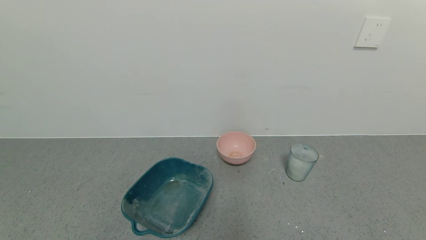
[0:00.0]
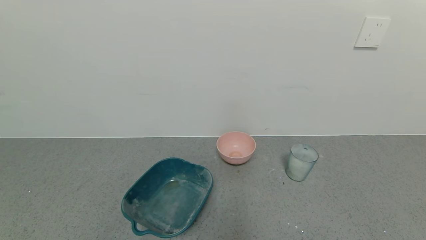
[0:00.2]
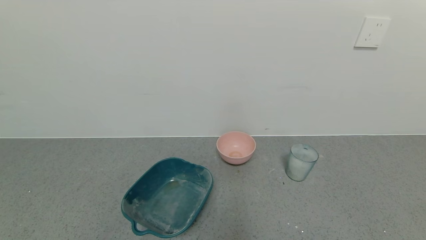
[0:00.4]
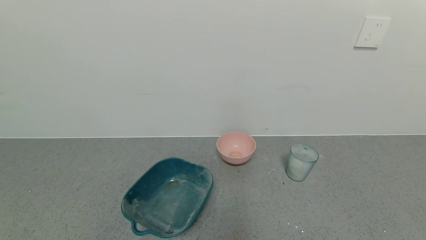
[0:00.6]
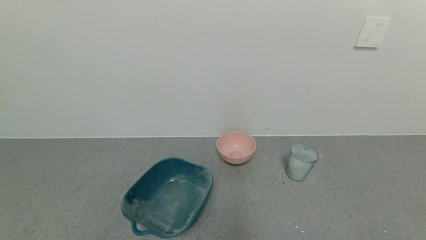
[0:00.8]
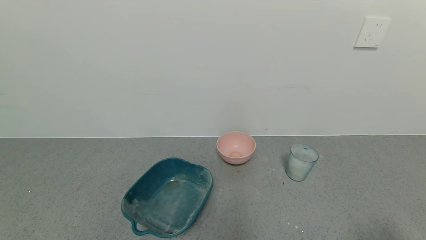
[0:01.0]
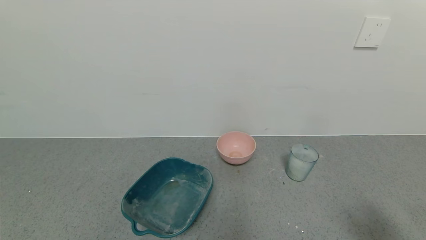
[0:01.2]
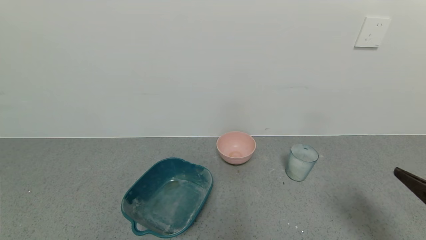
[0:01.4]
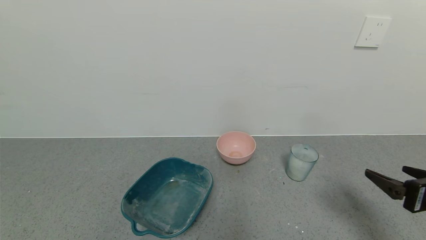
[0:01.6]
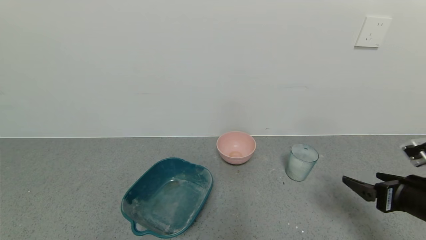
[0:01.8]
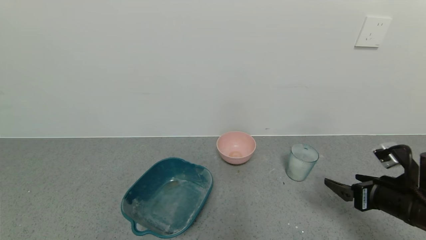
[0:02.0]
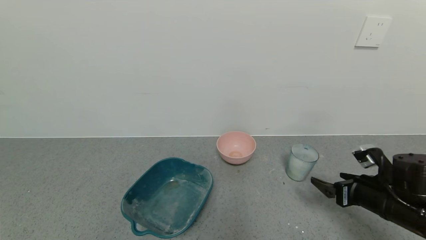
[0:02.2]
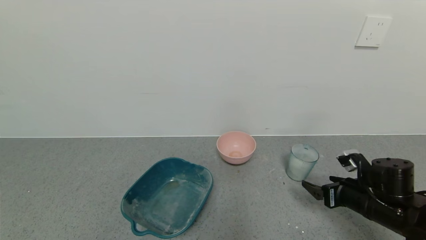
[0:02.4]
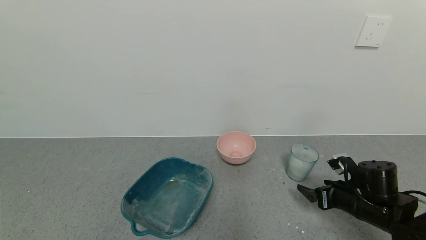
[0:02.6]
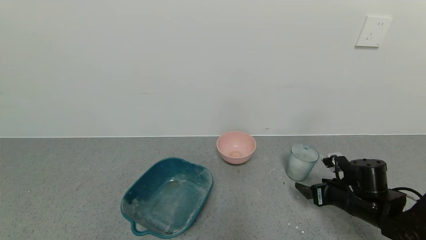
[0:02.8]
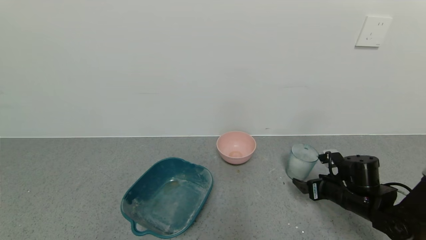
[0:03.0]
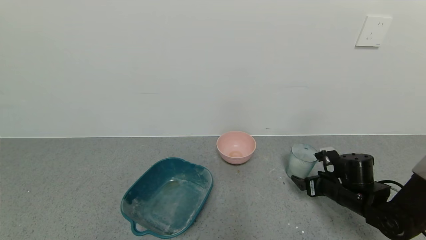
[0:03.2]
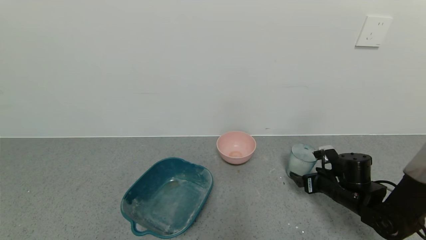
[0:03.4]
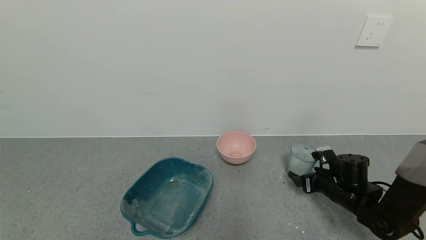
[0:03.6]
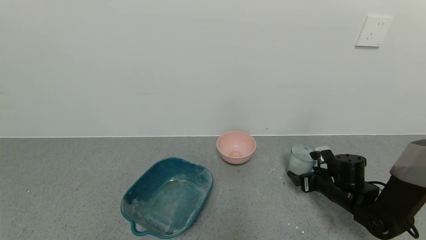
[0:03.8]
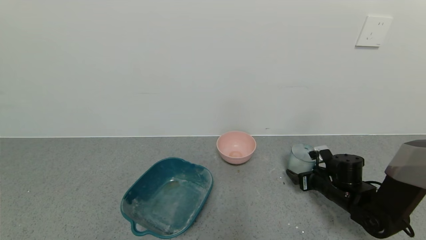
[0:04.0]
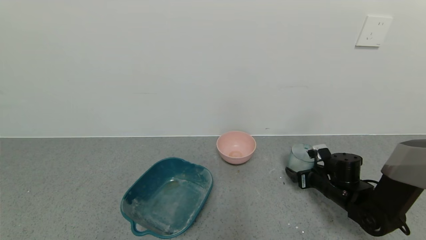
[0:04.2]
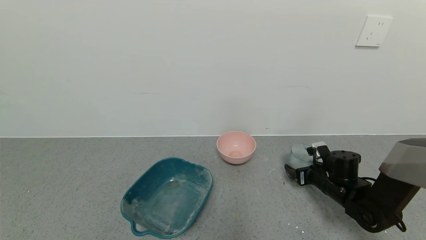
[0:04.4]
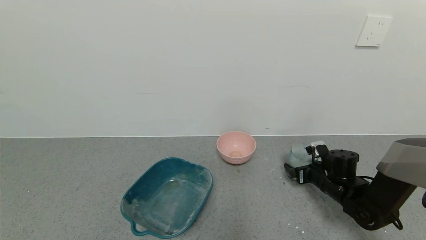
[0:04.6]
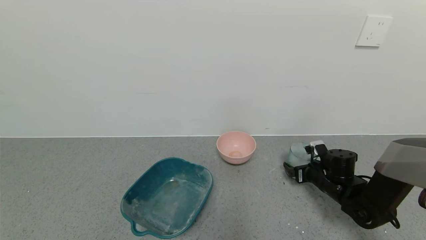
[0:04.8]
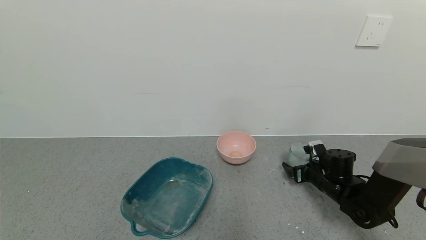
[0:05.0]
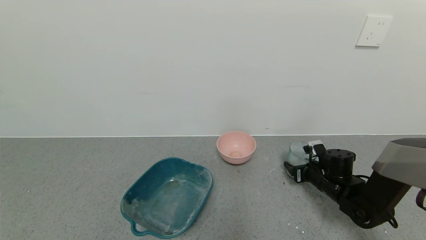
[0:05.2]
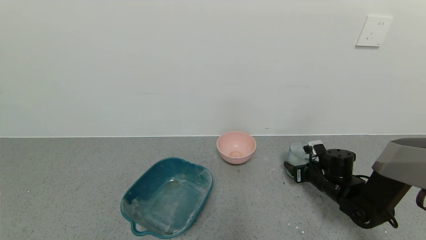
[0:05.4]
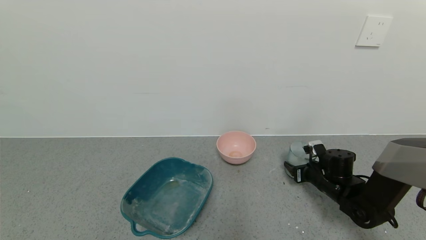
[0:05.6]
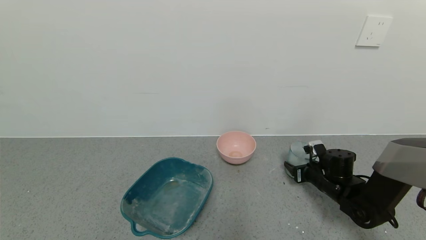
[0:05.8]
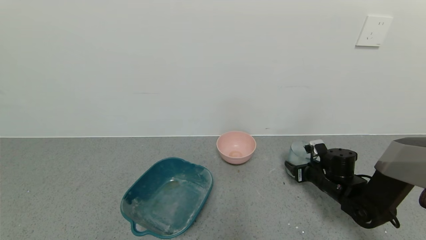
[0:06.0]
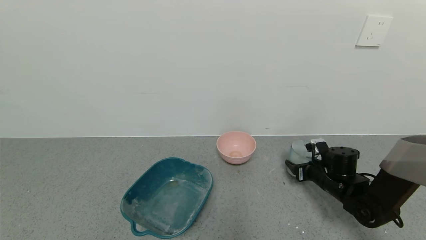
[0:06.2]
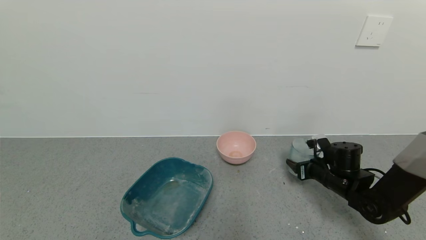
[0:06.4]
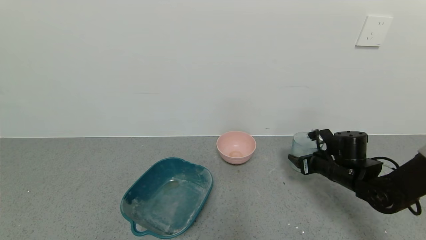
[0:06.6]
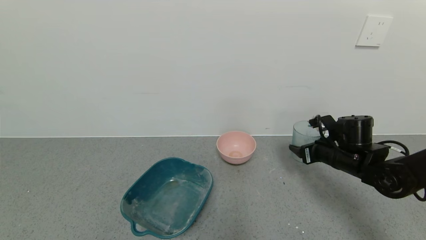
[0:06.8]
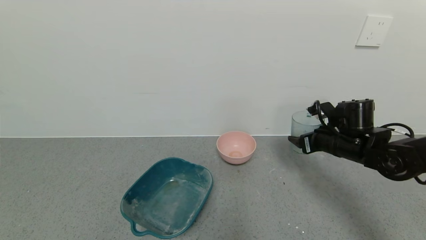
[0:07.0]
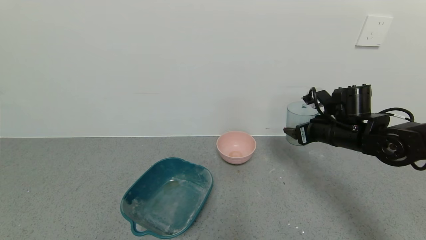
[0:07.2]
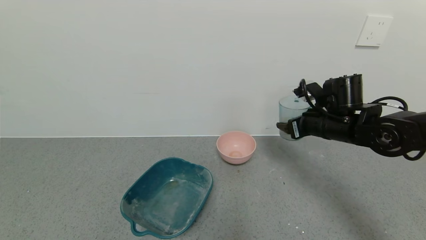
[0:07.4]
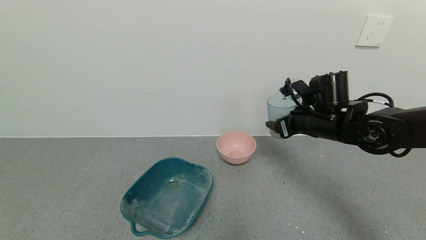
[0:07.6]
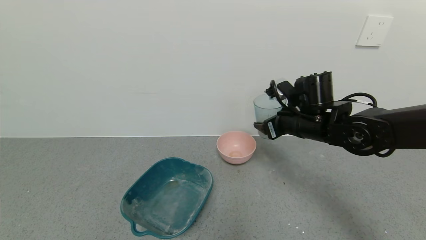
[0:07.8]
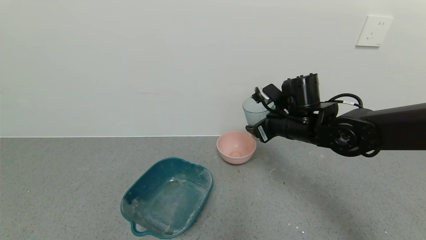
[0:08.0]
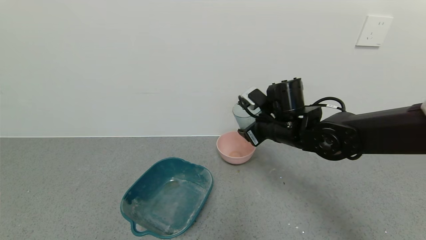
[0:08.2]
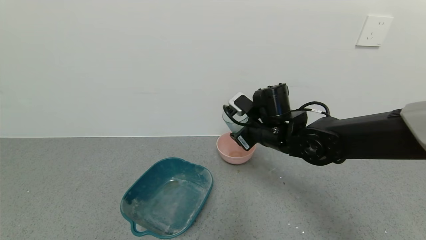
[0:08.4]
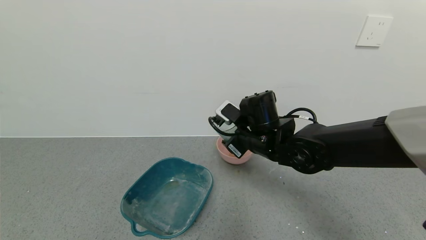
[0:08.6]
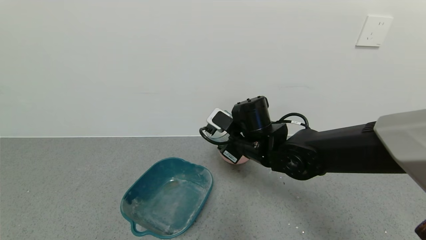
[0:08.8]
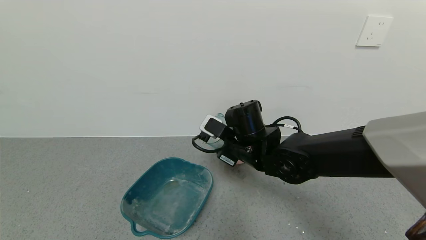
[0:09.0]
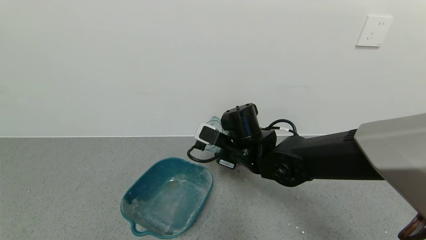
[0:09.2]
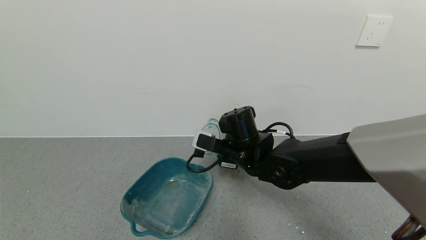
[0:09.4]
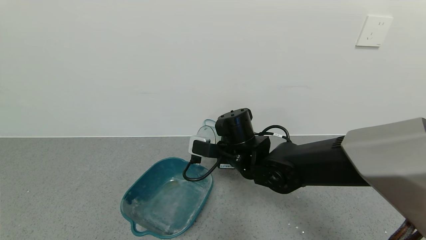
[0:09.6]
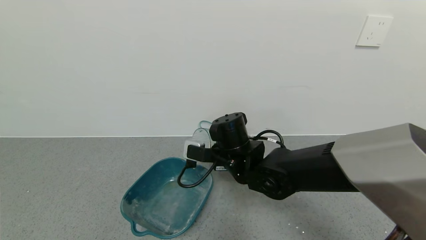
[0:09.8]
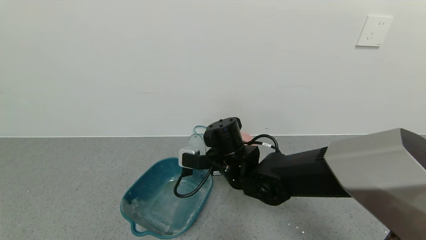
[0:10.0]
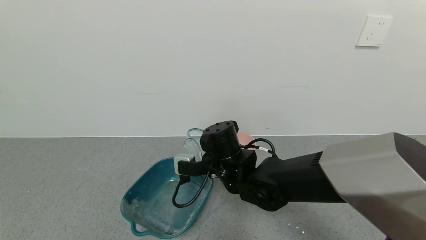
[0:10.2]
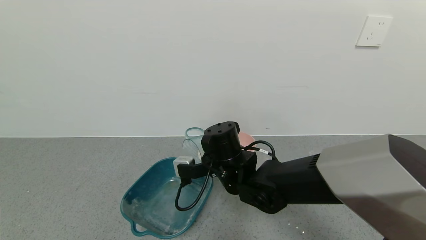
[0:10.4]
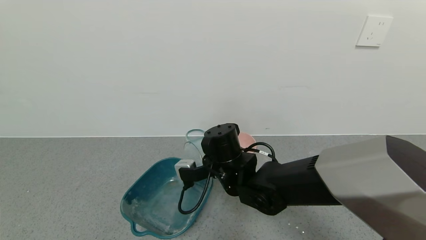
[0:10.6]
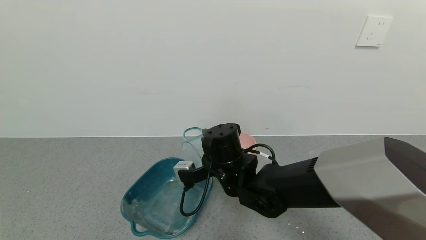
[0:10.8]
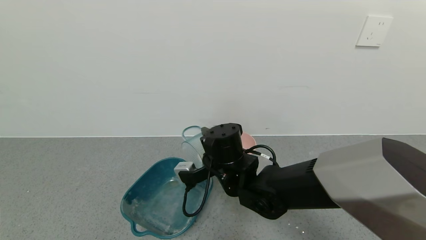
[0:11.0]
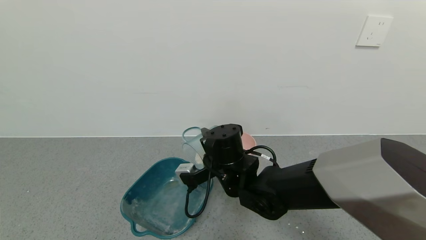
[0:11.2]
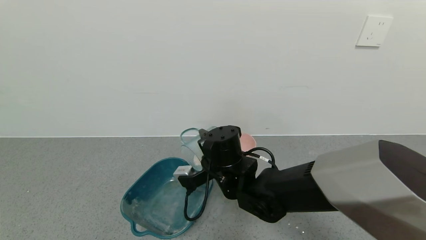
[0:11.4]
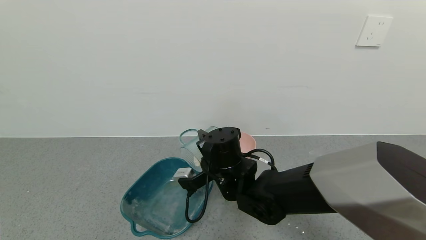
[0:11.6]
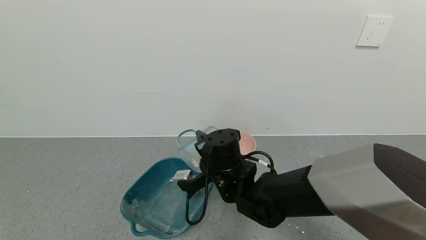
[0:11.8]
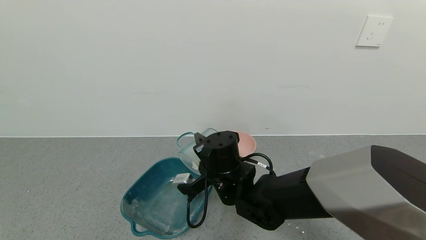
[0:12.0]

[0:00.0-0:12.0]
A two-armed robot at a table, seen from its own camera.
Task of the whole recording: use a gripper to pick up the cup and pour the powder into a bowl or tray.
Step, 0:00.0 to 0:05.2: Grasp the glass of powder with the right gripper.
0:00.0 to 0:01.6: The right gripper is displaced forward and upward by about 20 cm.
0:01.6 to 0:03.0: The right gripper moves forward, downward and to the left, approximately 20 cm.
0:03.0 to 0:04.4: The right gripper changes place by some 5 cm.
0:04.4 to 0:06.0: The right gripper closes its fingers.
0:06.0 to 0:07.6: The right gripper travels upward and to the left by some 20 cm.
0:07.6 to 0:09.0: The right gripper travels to the left by approximately 15 cm.
0:09.0 to 0:10.4: The right gripper moves about 5 cm.

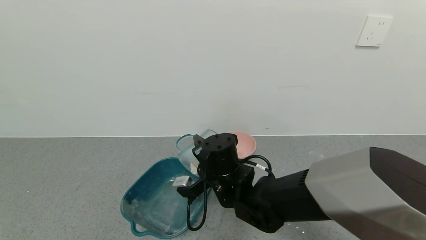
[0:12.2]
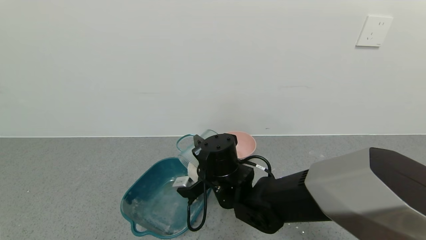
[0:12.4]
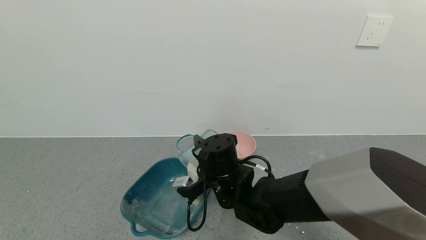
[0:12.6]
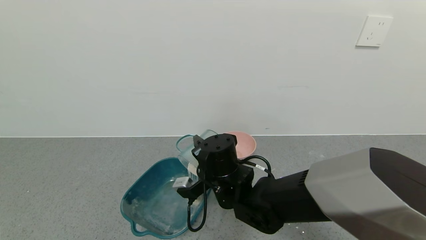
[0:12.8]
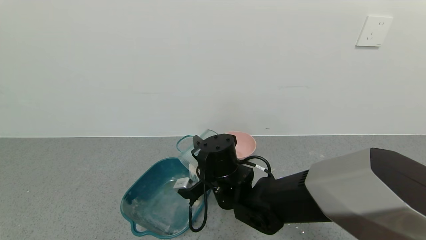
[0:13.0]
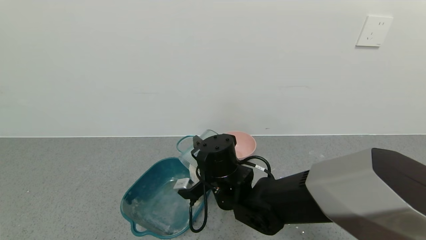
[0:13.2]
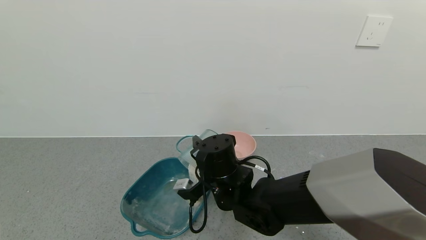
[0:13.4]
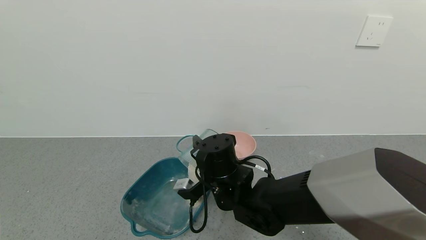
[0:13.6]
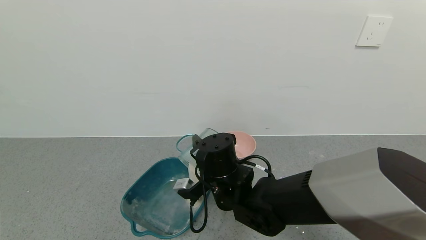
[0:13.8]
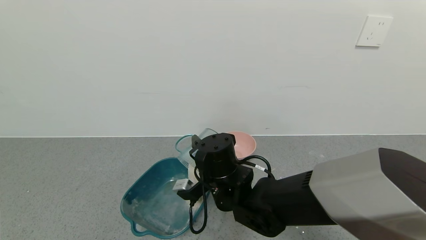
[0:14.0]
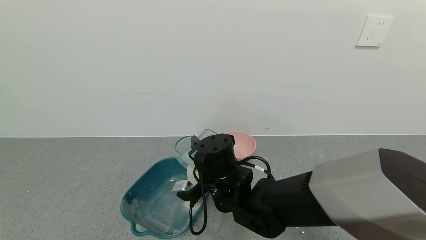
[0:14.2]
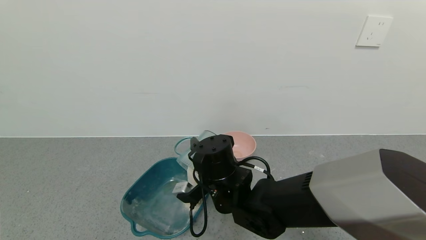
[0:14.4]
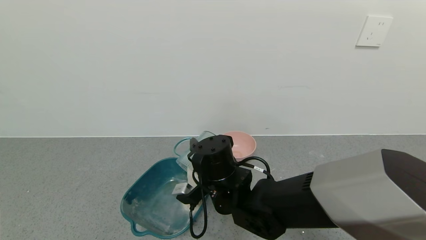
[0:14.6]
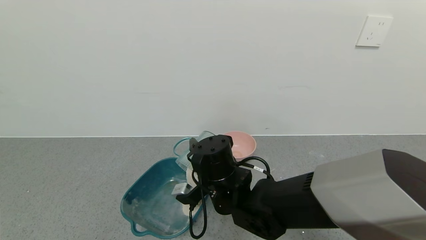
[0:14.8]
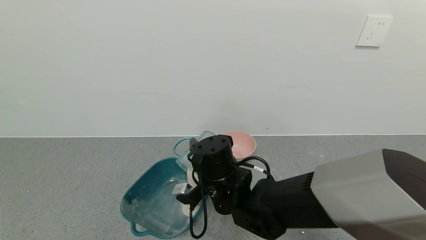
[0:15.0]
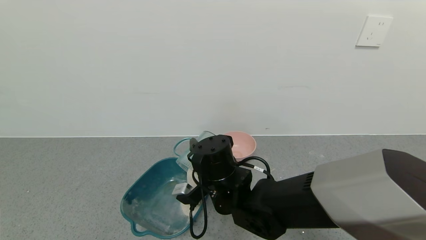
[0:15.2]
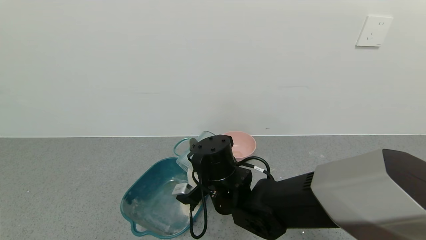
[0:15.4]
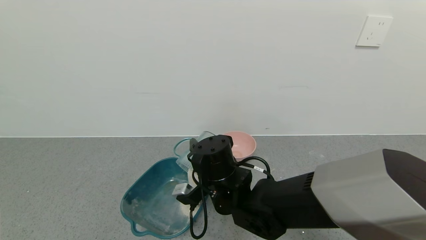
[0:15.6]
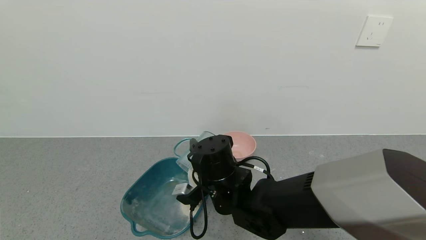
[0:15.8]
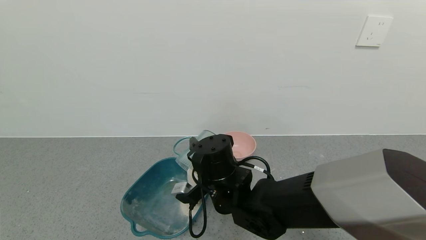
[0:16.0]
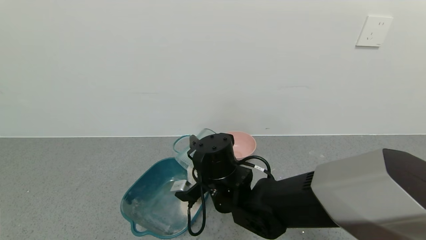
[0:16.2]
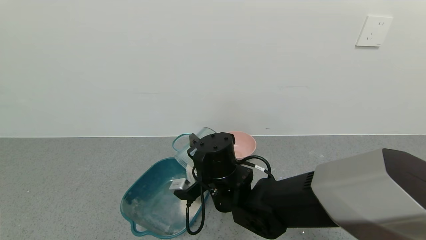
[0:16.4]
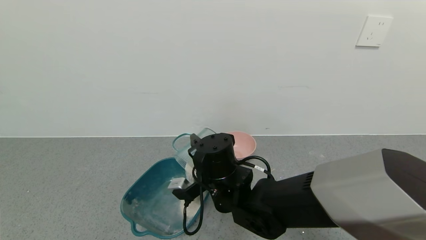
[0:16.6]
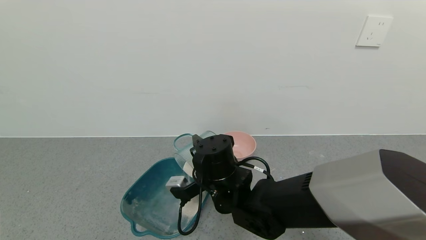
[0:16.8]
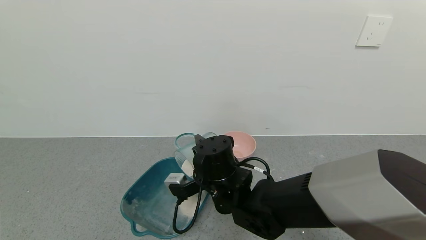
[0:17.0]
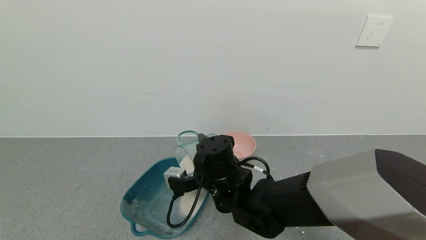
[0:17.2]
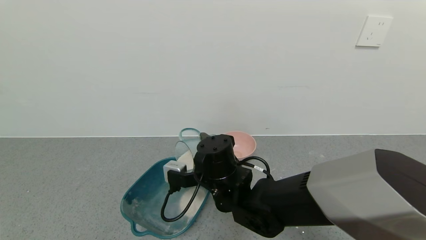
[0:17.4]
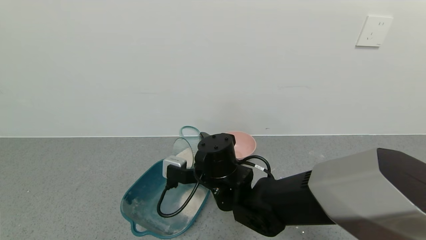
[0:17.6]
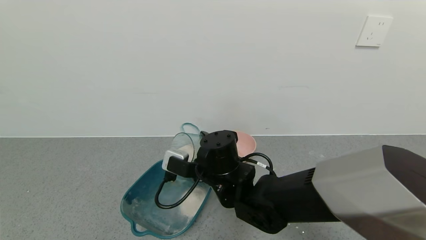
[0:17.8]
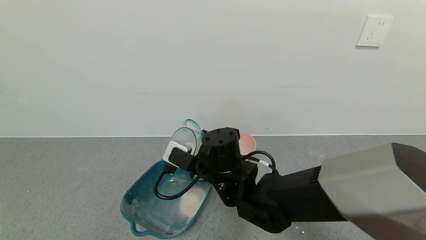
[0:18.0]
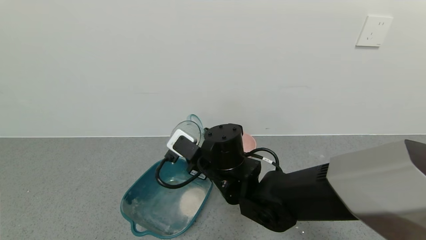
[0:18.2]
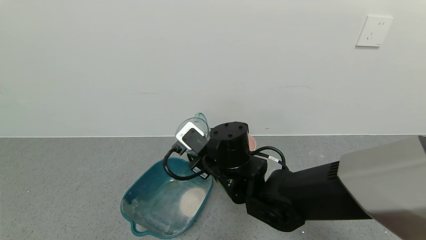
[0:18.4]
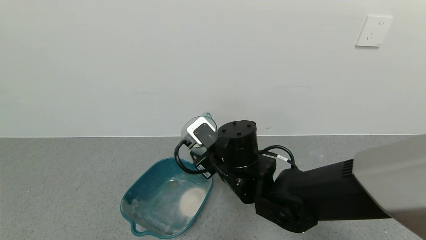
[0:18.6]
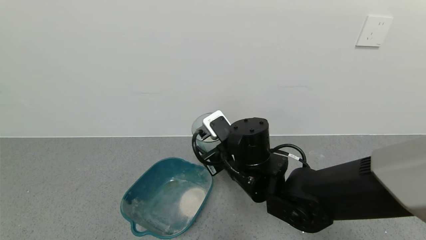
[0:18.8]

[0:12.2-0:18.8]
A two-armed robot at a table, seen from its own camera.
Task of the whole recording: use a gripper to pick up the cup and pour the powder into a bowl or tray.
0:12.2 to 0:13.8: The grippers stay close to where they were, moving slightly.
0:13.8 to 0:15.4: The two grippers keep their place.
0:17.2 to 0:18.8: The right gripper moves about 5 cm.
